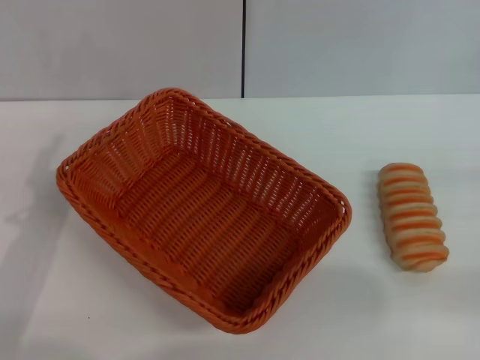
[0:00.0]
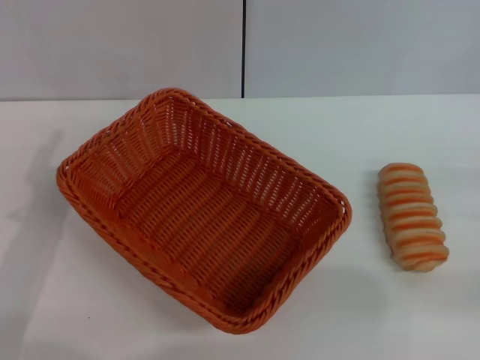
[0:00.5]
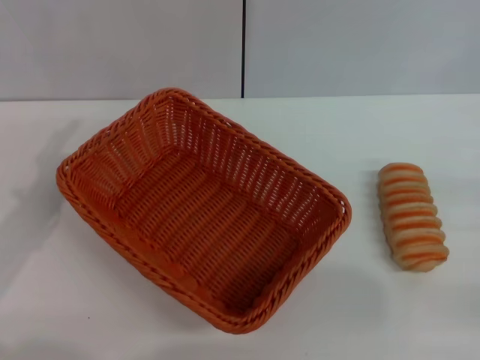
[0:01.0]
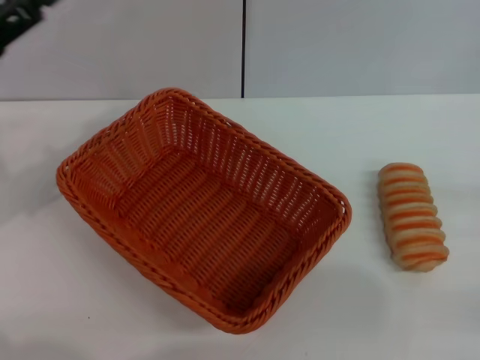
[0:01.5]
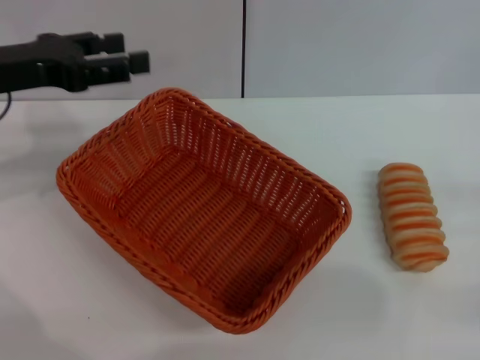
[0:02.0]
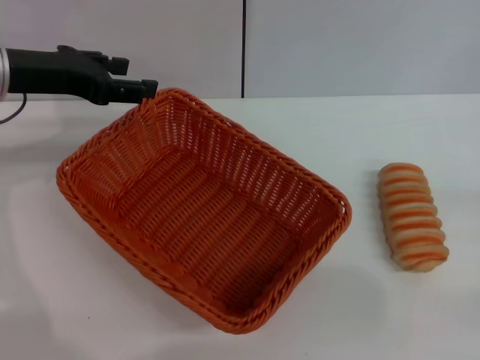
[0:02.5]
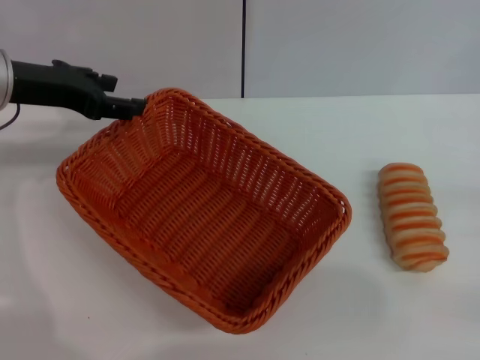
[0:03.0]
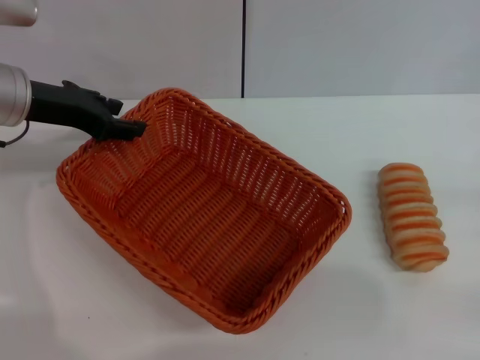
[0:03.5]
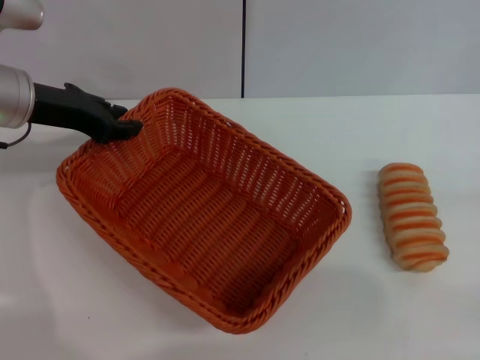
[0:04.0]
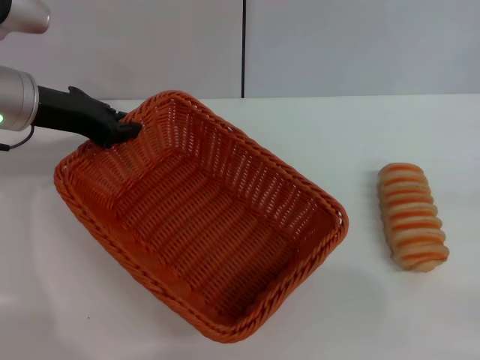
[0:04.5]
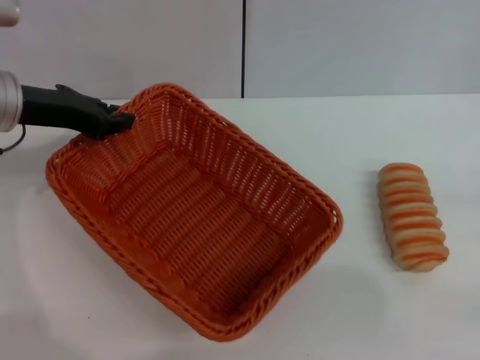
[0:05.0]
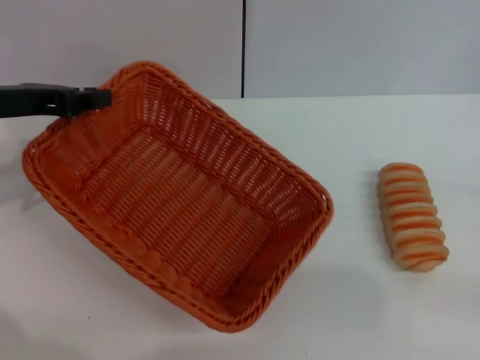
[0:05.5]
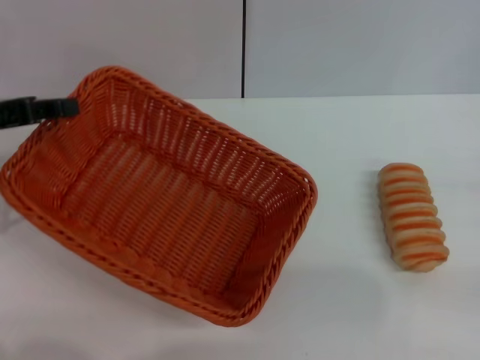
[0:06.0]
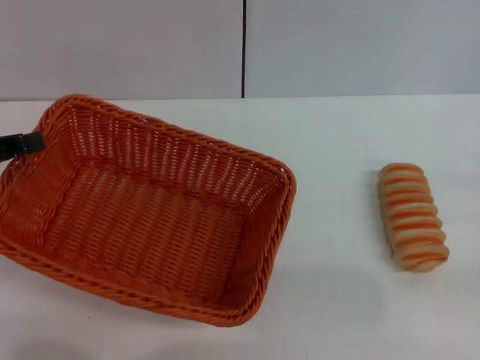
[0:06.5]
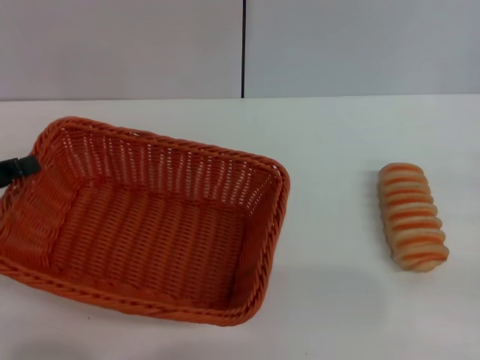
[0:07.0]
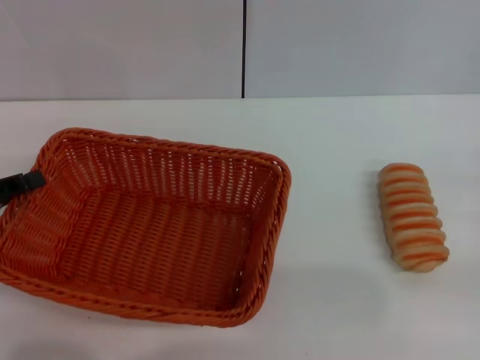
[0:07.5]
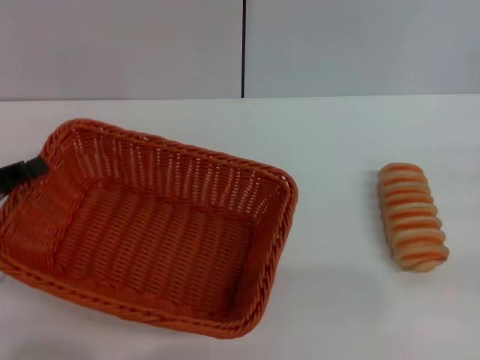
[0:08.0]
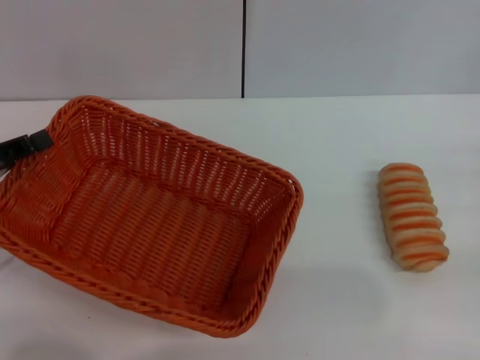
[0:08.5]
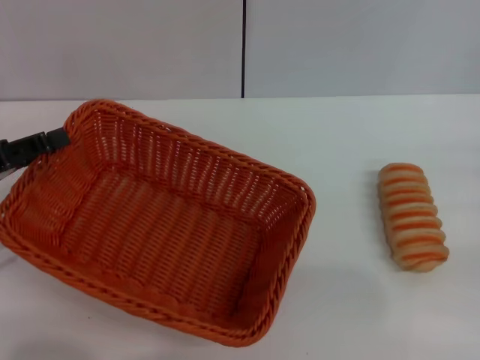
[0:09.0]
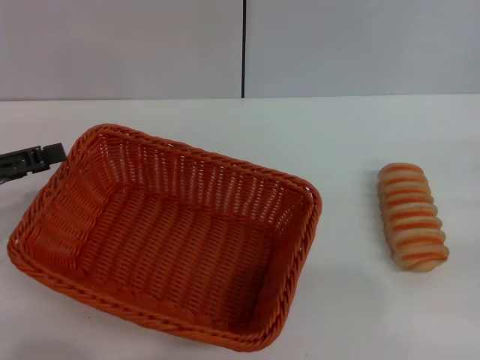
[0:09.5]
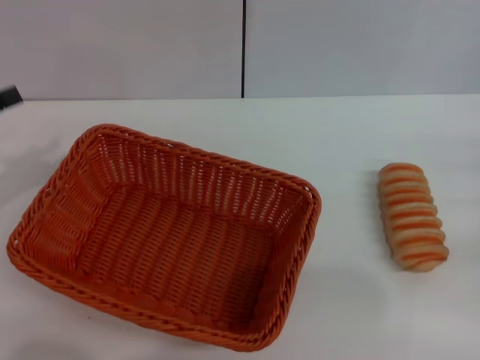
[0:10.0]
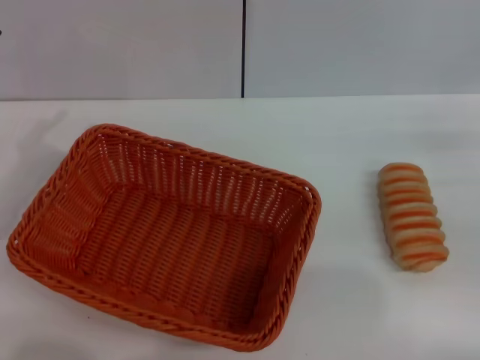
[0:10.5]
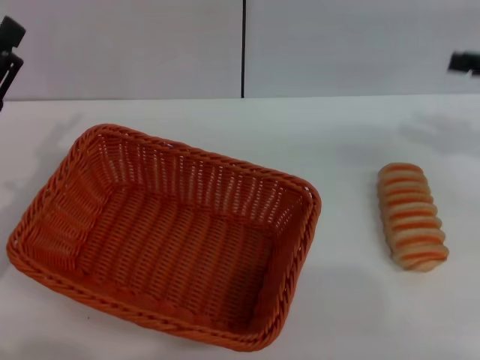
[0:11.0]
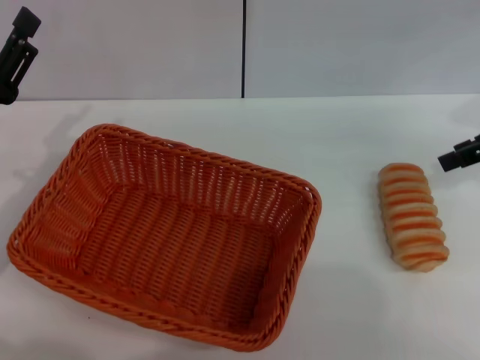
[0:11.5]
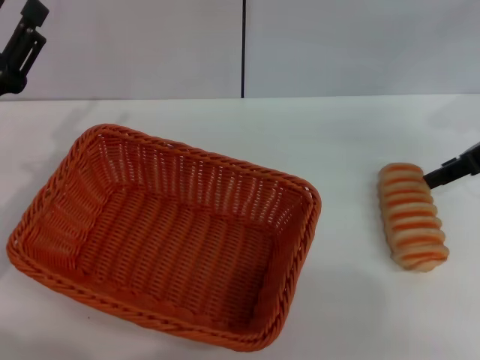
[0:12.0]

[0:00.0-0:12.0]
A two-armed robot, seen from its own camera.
Step, 0:00.0 to 0:05.5: Pick up the light basket with the left gripper.
Step, 0:06.0 to 0:09.5: Place the light basket in the center of view with the left gripper.
0:00.0 to 0:02.0: The left gripper is displaced forward and upward by about 15 cm.
0:02.0 to 0:04.0: The left gripper changes place by about 5 cm.
0:04.0 to 0:06.0: The left gripper is displaced to the left and backward by roughly 10 cm, and closes up.
0:06.0 to 0:08.0: The left gripper heads downward and backward, covering about 10 cm.
0:08.0 to 0:10.0: The left gripper heads upward, covering about 5 cm, and opens.
0:10.0 to 0:12.0: The left gripper heads to the right, covering roughly 10 cm, while the right gripper travels forward, upward and to the left by some 20 cm.

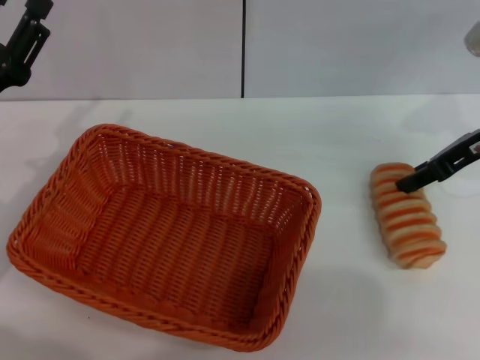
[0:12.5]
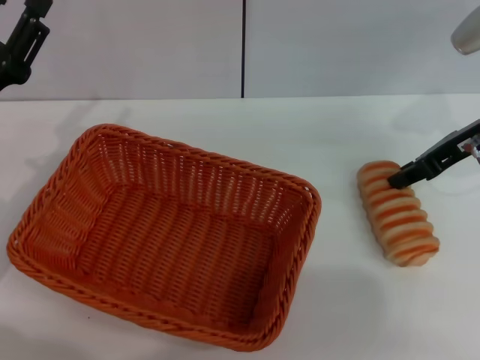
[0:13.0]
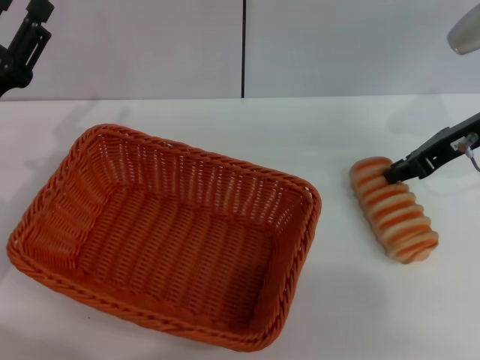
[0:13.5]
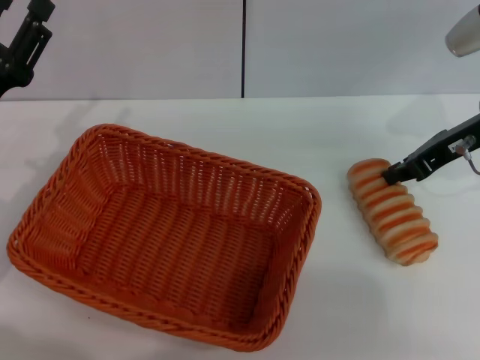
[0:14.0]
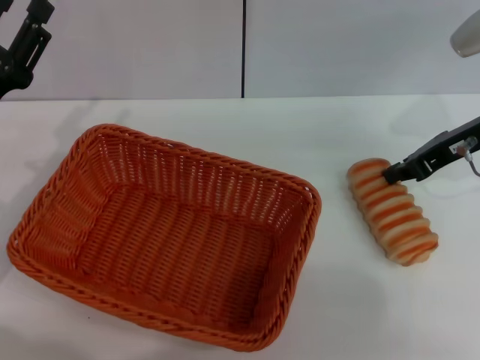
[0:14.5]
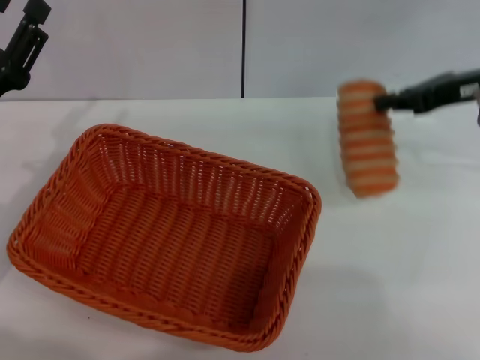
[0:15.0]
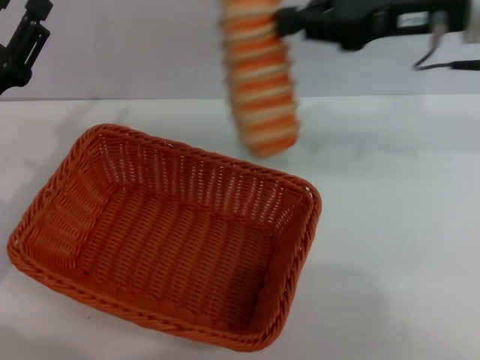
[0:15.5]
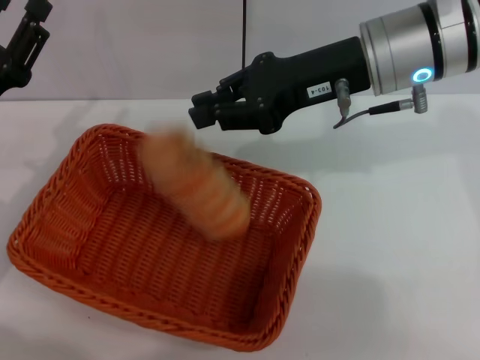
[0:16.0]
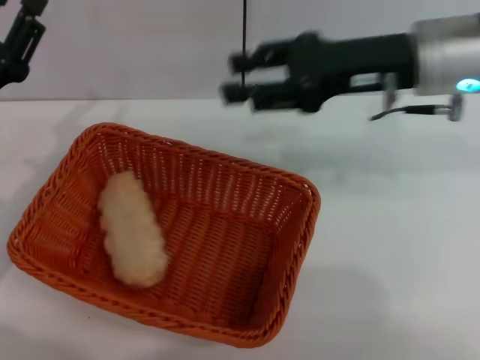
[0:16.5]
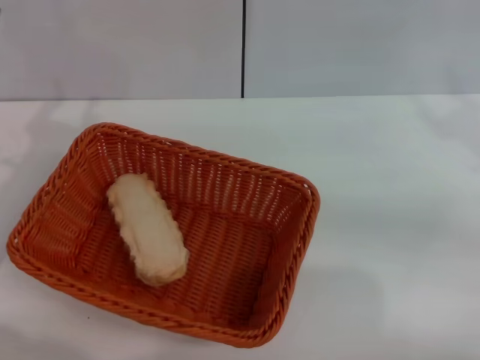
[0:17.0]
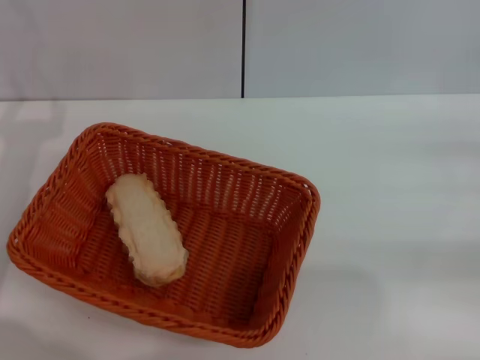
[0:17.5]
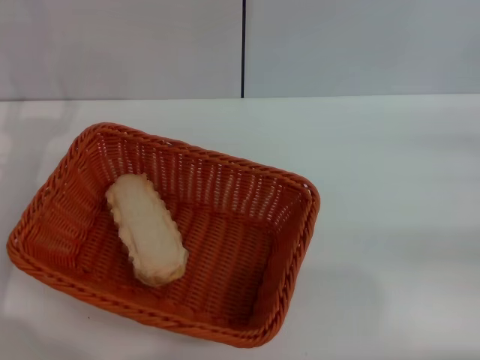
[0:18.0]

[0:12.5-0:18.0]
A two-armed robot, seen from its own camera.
Step, 0:12.5 to 0:14.5: Pick up the long bread with the right gripper.
Step, 0:15.5 to 0:16.0: Place the long bread into the light basket with the right gripper.
0:12.5 to 0:14.5: The right gripper closes.
0:14.5 to 0:16.0: The right gripper goes roughly 15 cm to the left and upward.
0:16.0 to 0:18.0: The right gripper is displaced to the right by approximately 25 cm, and opens up.

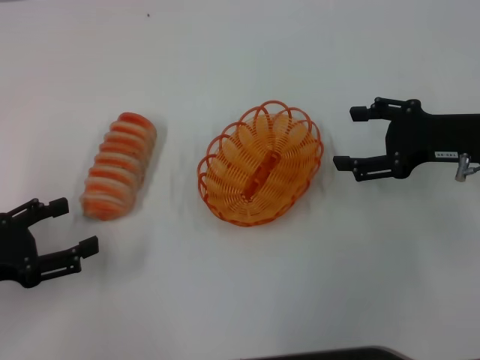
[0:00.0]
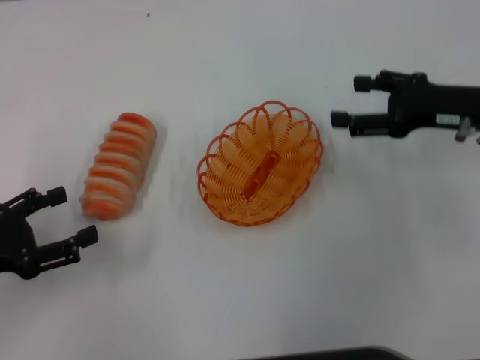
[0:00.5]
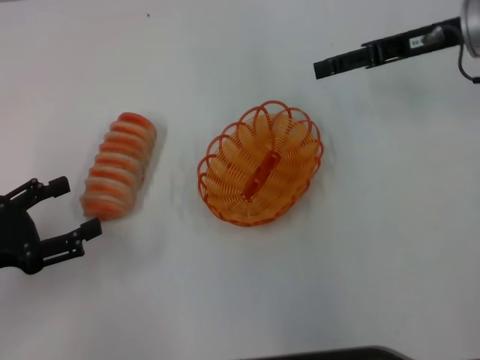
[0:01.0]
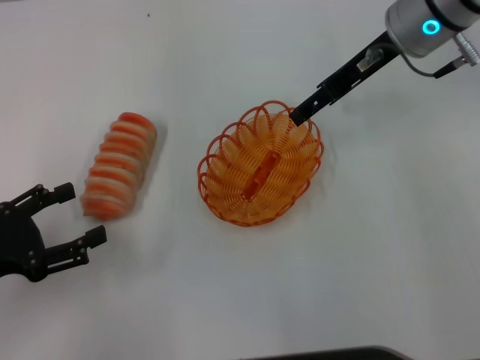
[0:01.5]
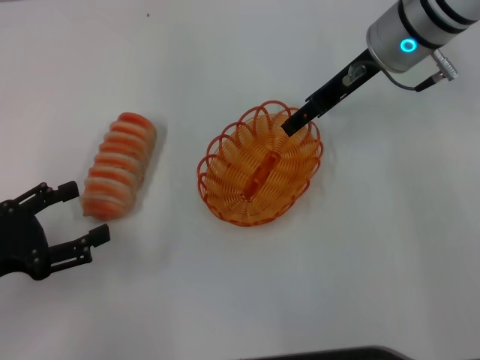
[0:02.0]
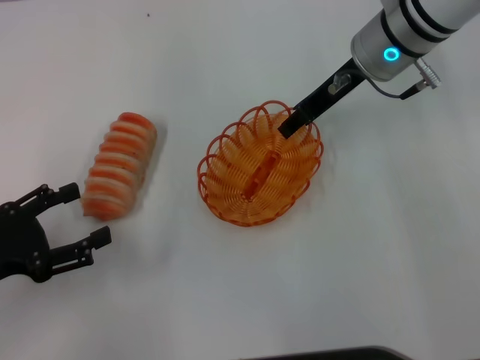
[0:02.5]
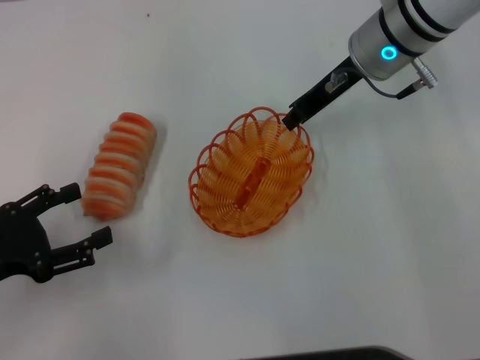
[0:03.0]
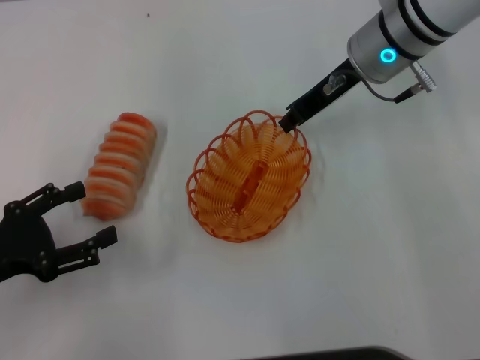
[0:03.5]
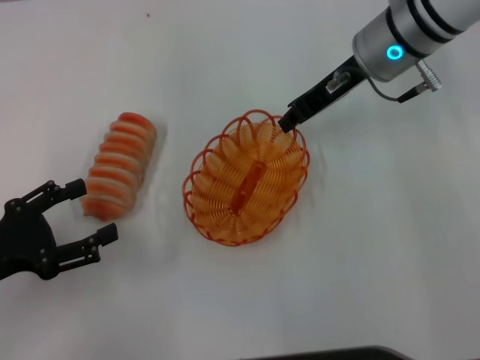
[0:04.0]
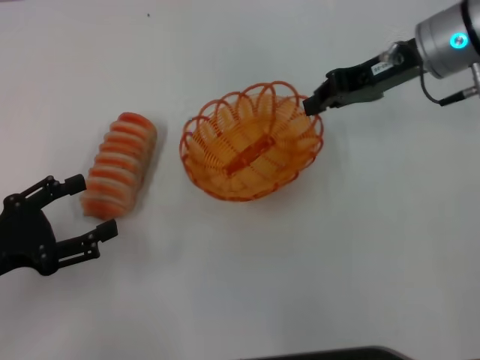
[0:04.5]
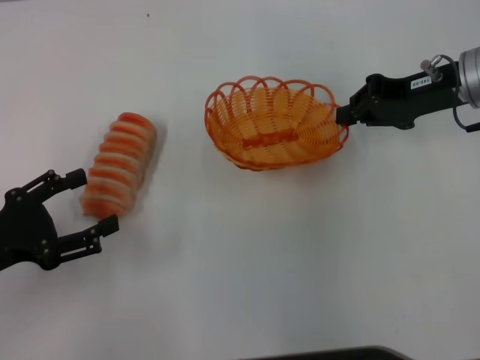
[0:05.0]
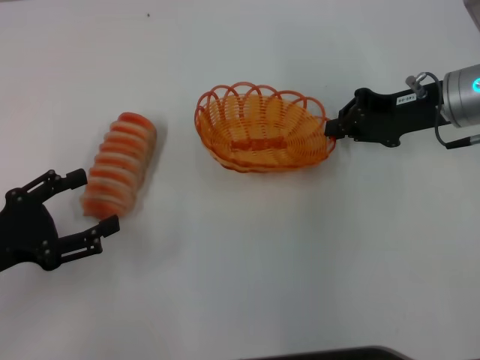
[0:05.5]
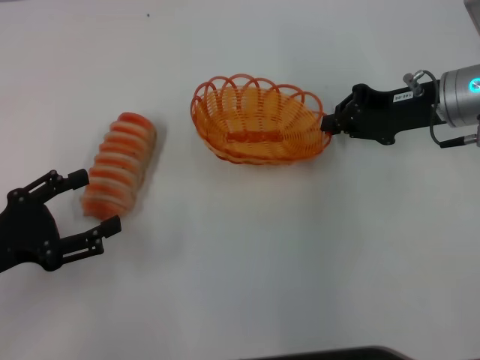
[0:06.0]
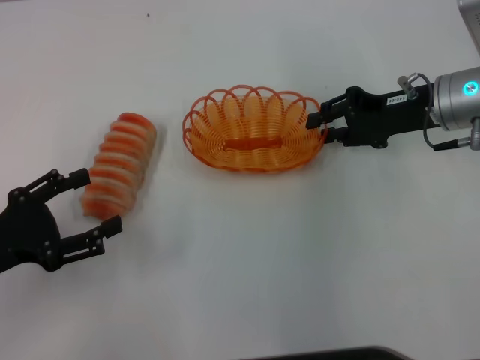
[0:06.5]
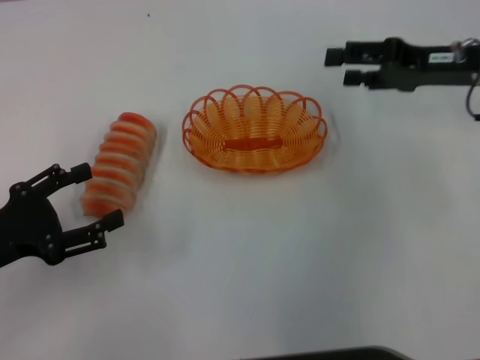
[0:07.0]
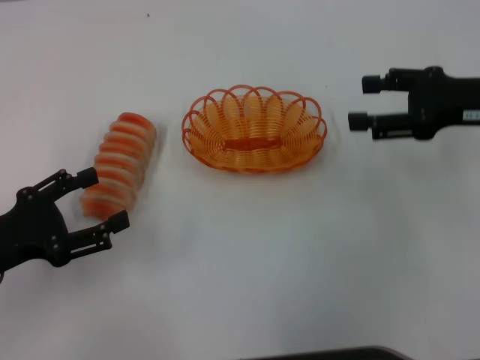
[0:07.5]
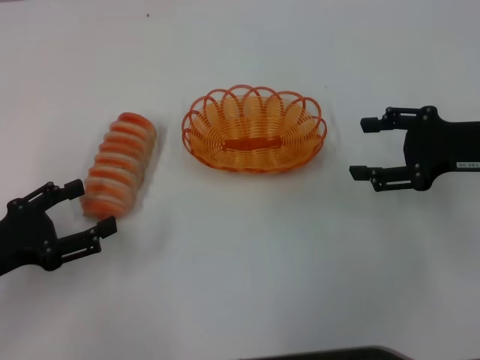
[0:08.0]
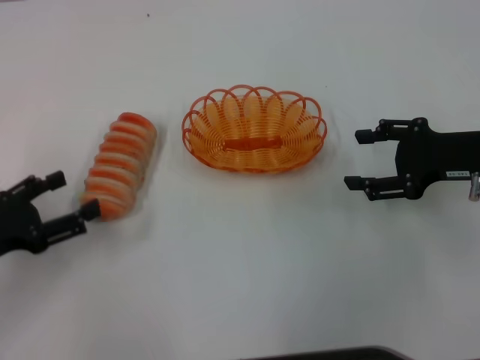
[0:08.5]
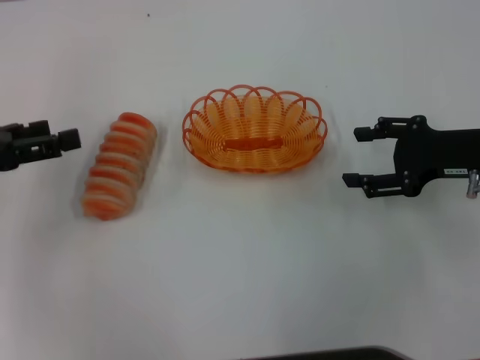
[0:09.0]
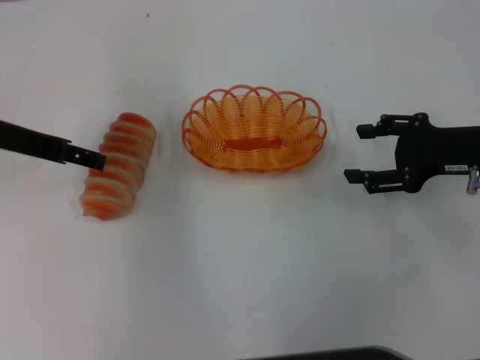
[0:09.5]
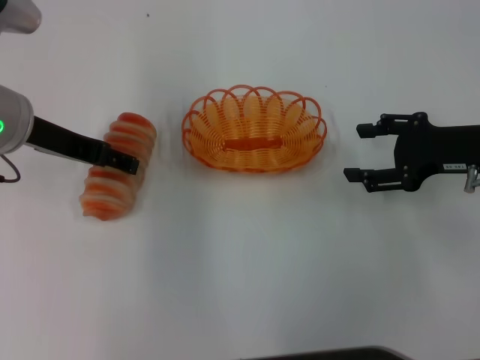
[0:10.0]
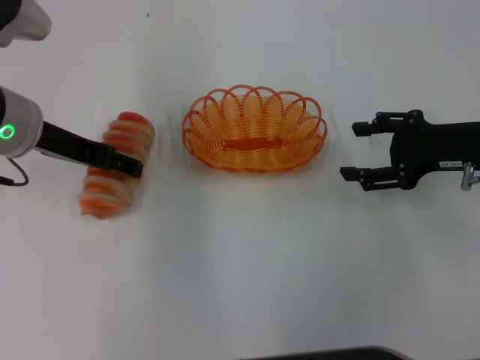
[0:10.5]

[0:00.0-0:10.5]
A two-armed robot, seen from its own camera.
Step, 0:00.0 to 0:04.5: Pick up the basket with the right gripper.
Step, 0:05.0 to 0:06.5: Place the basket in the center of view with the right gripper.
0:00.0 to 0:02.0: The right gripper shifts approximately 15 cm to the left, forward and upward.
0:02.0 to 0:04.0: The right gripper closes.
0:04.0 to 0:06.5: The right gripper is displaced to the right, downward and backward by some 10 cm.
0:06.5 to 0:08.5: The right gripper shifts roughly 5 cm backward, and opens.
0:08.5 to 0:10.5: The left gripper travels forward, to the right and upward by some 20 cm.
